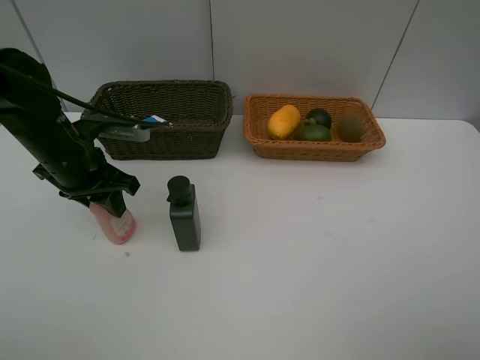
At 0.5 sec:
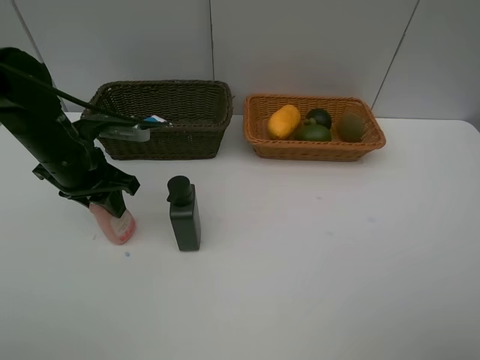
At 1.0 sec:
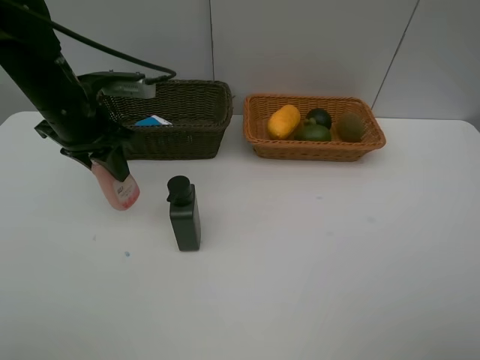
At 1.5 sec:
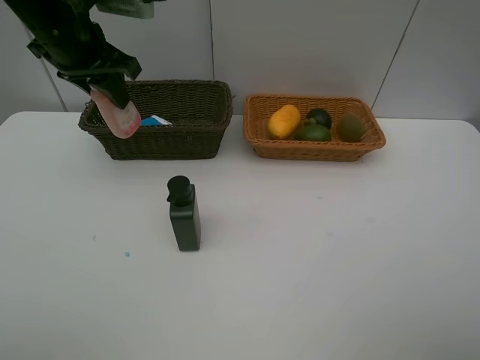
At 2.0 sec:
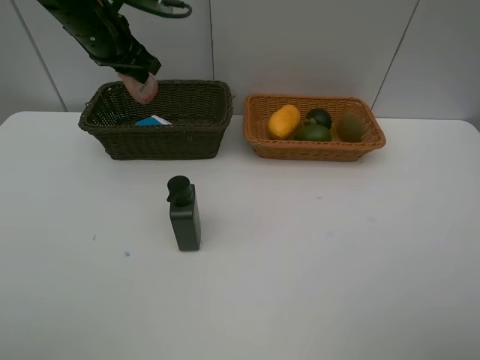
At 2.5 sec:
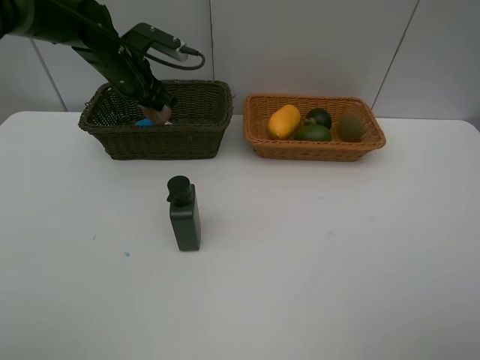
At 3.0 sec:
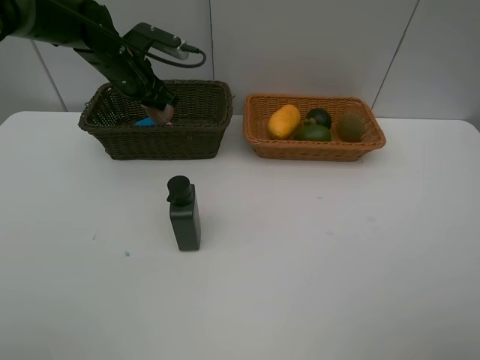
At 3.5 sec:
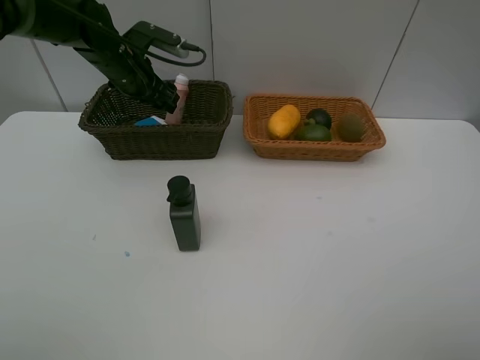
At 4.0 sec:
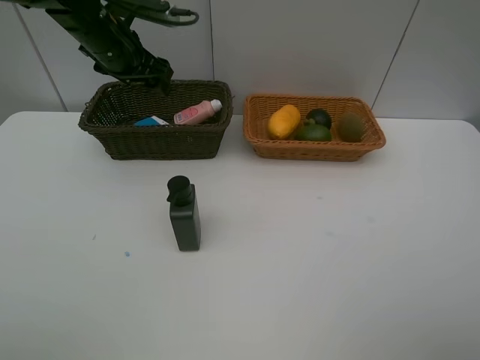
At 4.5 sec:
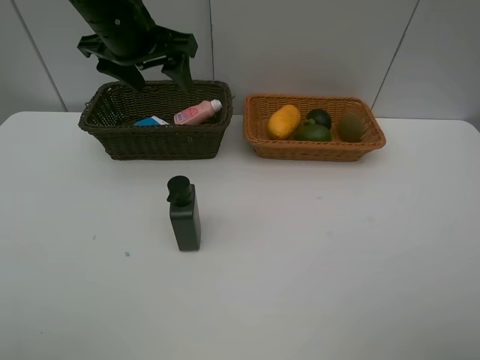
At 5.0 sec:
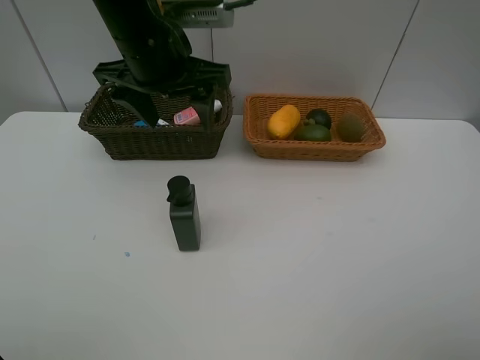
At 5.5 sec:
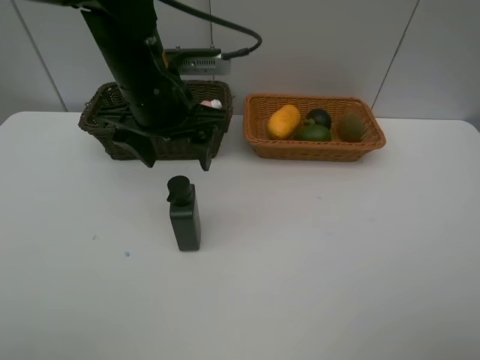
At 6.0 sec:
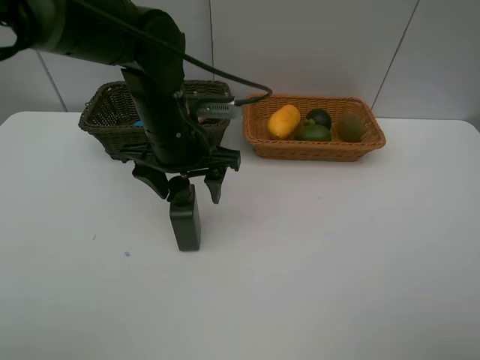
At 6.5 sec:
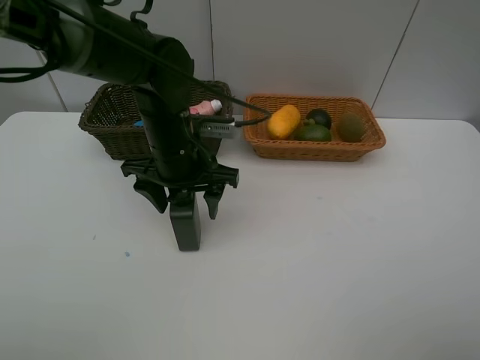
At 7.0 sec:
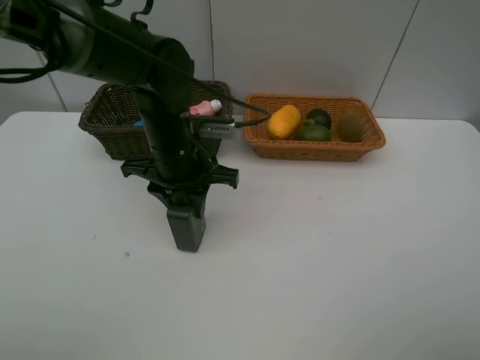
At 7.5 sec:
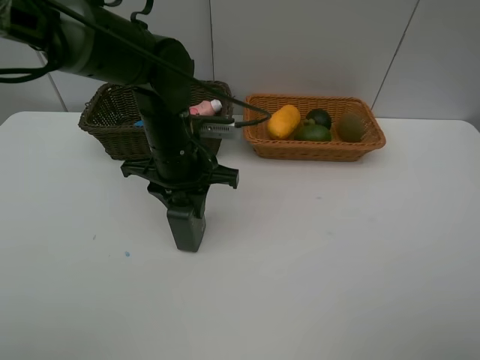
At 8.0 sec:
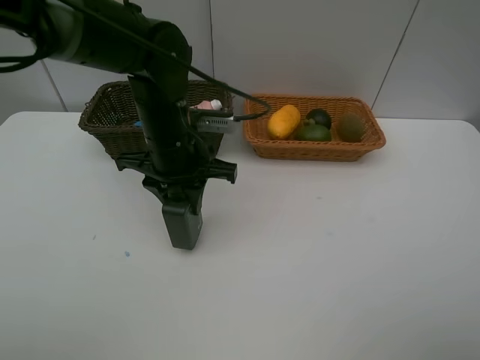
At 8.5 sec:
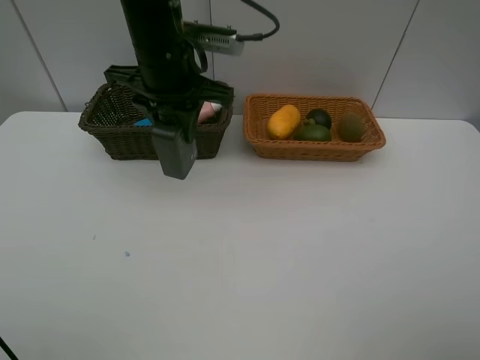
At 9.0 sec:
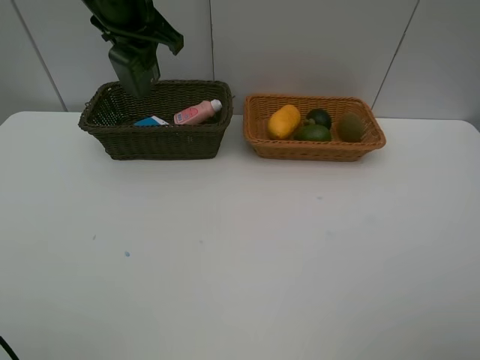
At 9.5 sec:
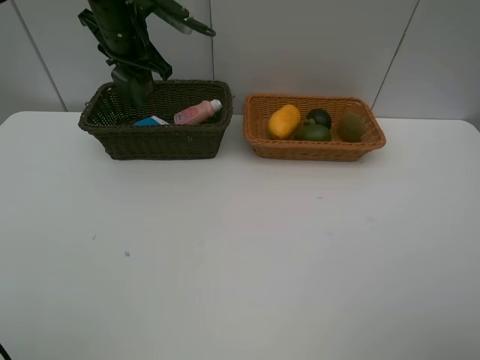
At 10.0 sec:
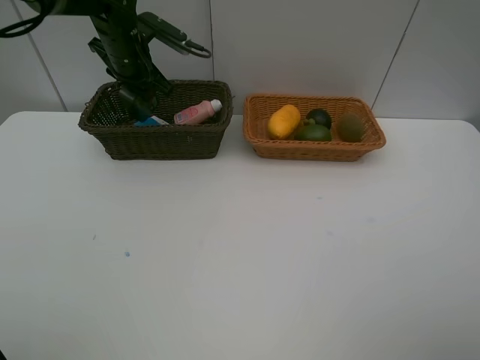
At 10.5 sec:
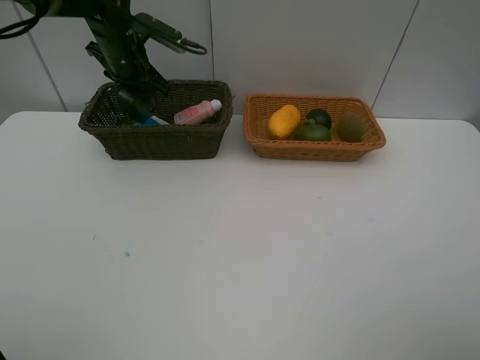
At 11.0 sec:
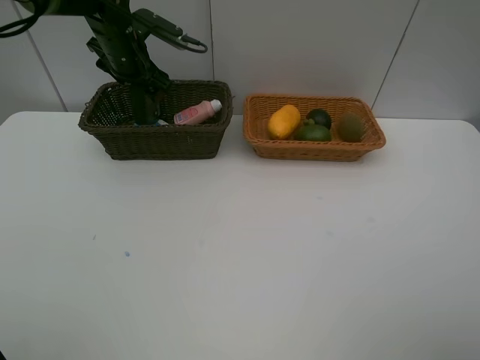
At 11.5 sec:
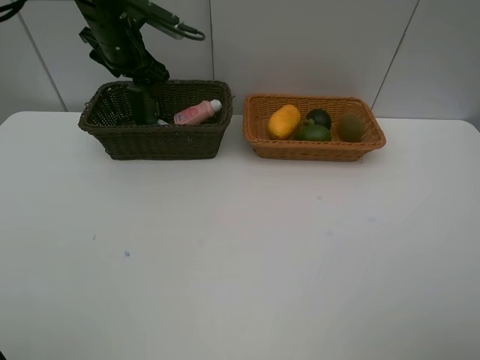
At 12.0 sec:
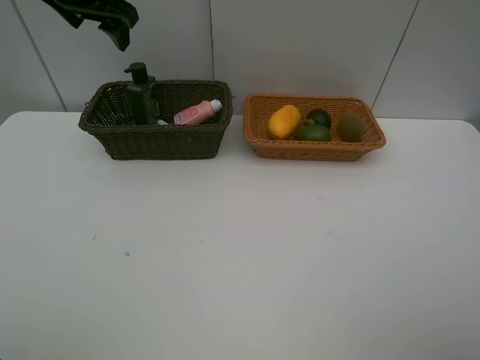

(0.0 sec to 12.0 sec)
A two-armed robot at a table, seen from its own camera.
Task of the whole recording: Place multiple objects separately in different baskets.
Step, 1.5 sec - 3.5 sec: Place the laundry detergent in the dark basket with left gripper.
Step, 4.0 sec - 8.0 sec: Pick up the hard facial cleanser with left gripper.
Step, 8.5 sec - 11.5 sec: Place the hard facial cleanser in the dark basket with left gripper.
0.0 sec - 2.0 sec: The left gripper shifts some 15 cm forward and upward.
2.0 sec - 4.0 sec: The left gripper opens up.
4.0 sec - 6.0 sec: The left gripper moves backward, to the right and downward, about 20 cm.
6.0 sec - 8.0 sec: The left gripper closes.
8.0 sec - 10.0 sec: The left gripper travels forward and to the left by roughly 20 cm.
10.0 sec - 12.0 sec: The left gripper travels upward and backward by approximately 15 cm, and opens.
